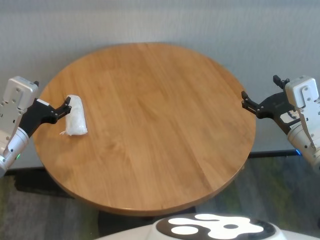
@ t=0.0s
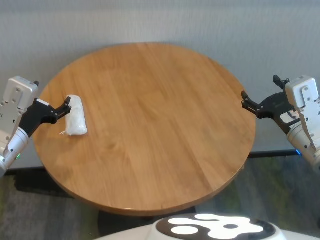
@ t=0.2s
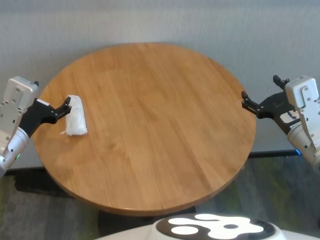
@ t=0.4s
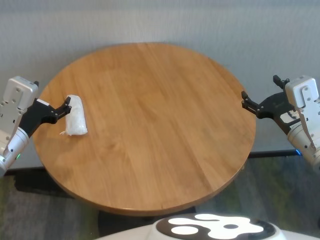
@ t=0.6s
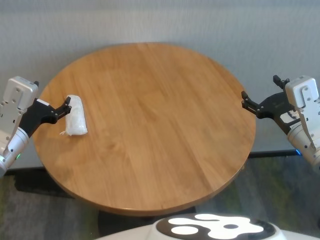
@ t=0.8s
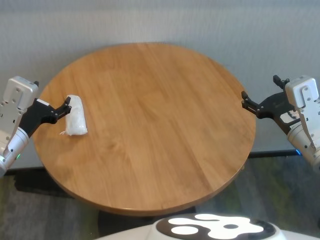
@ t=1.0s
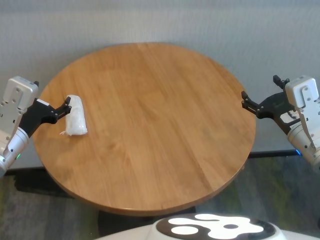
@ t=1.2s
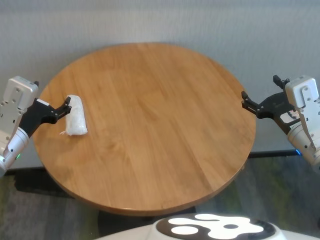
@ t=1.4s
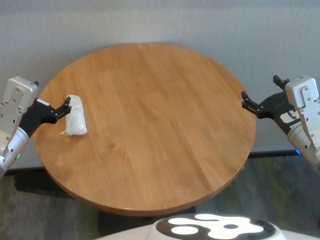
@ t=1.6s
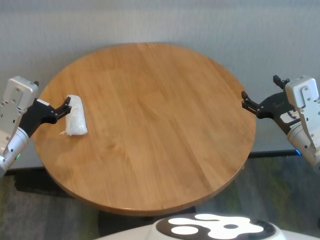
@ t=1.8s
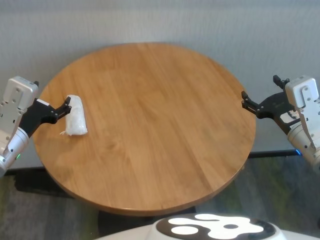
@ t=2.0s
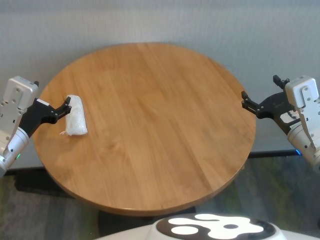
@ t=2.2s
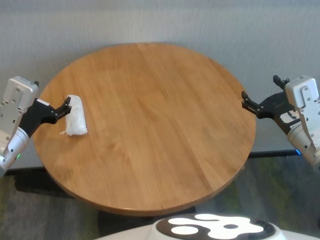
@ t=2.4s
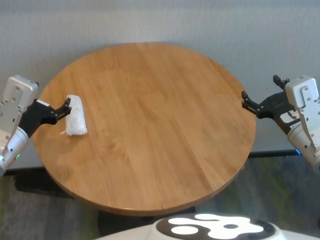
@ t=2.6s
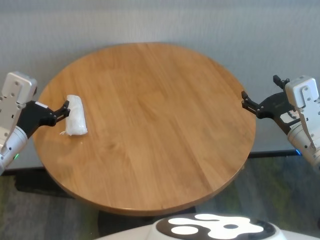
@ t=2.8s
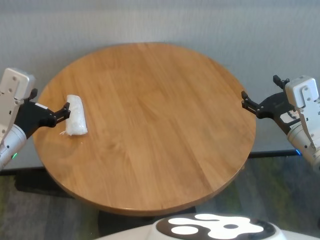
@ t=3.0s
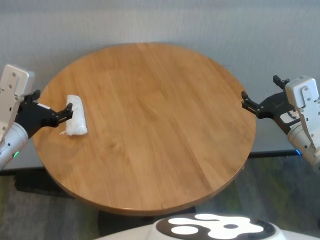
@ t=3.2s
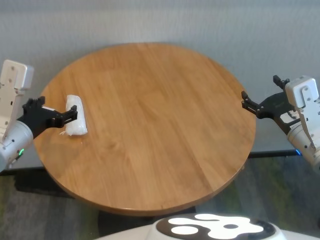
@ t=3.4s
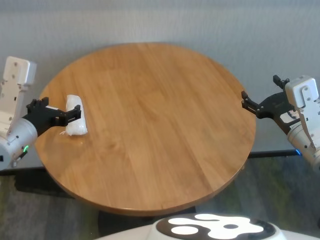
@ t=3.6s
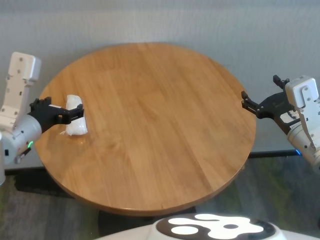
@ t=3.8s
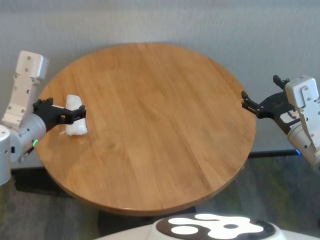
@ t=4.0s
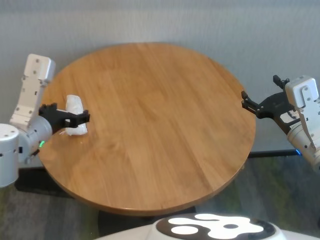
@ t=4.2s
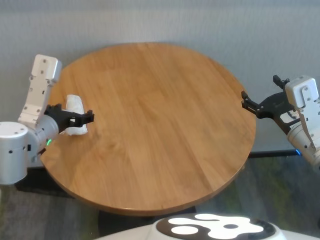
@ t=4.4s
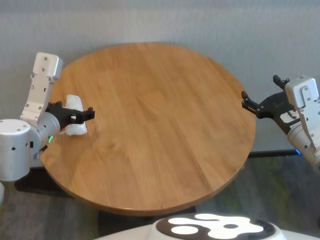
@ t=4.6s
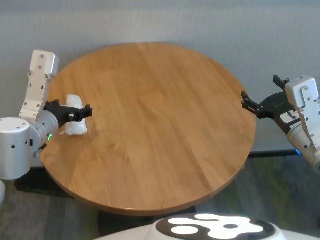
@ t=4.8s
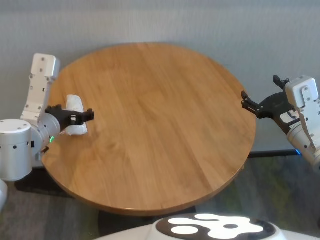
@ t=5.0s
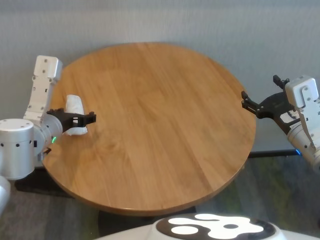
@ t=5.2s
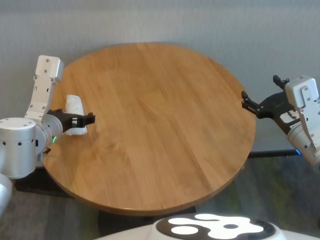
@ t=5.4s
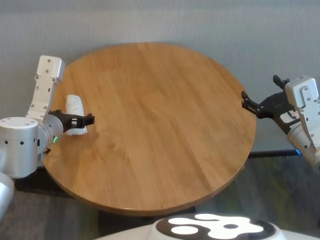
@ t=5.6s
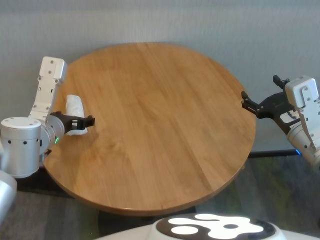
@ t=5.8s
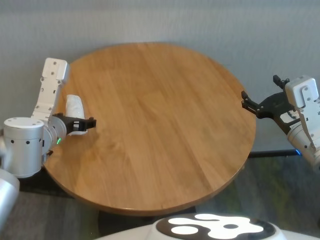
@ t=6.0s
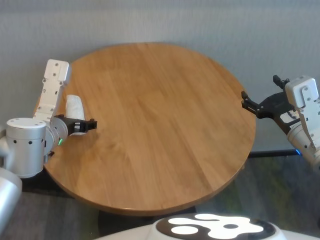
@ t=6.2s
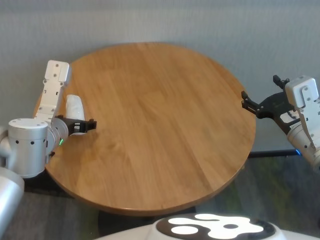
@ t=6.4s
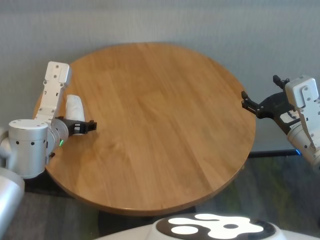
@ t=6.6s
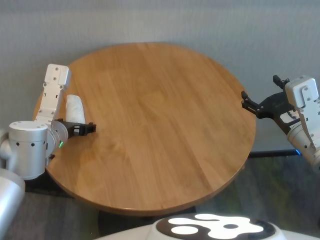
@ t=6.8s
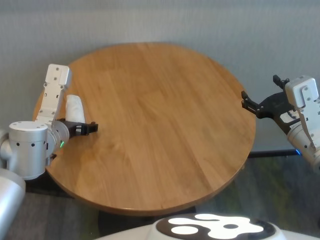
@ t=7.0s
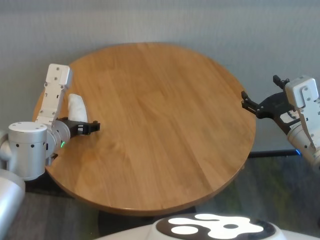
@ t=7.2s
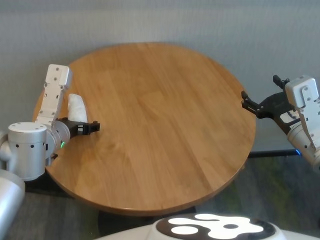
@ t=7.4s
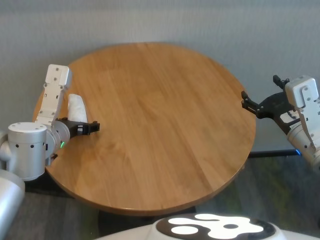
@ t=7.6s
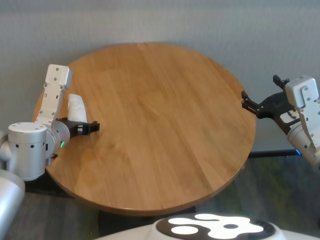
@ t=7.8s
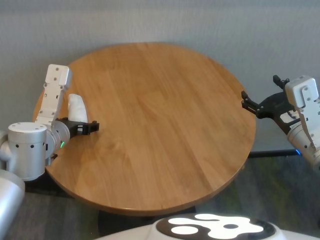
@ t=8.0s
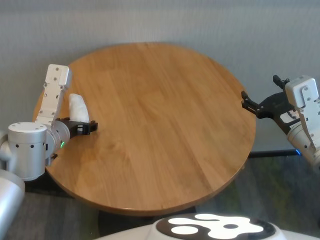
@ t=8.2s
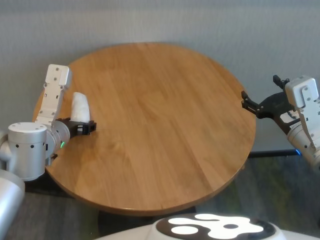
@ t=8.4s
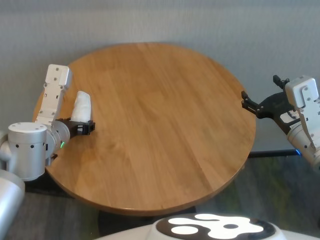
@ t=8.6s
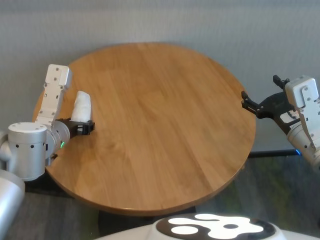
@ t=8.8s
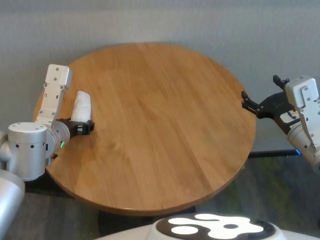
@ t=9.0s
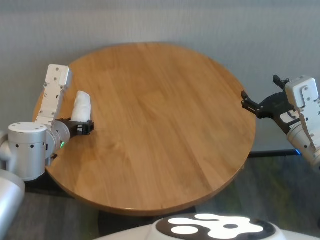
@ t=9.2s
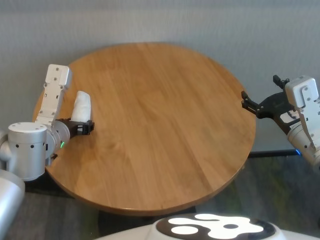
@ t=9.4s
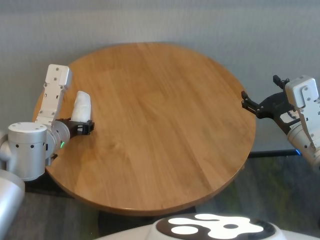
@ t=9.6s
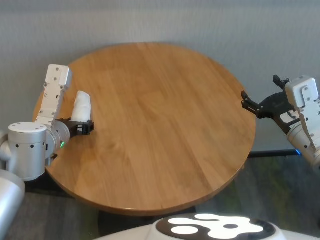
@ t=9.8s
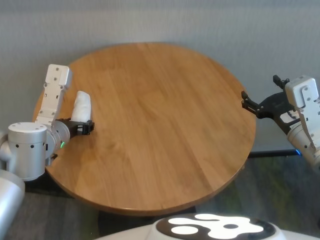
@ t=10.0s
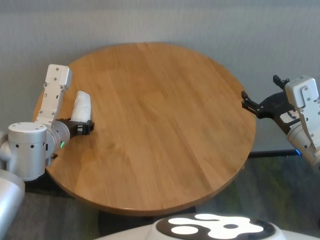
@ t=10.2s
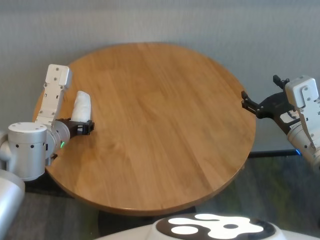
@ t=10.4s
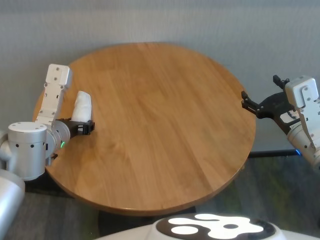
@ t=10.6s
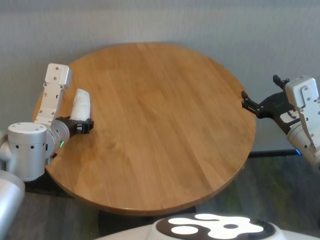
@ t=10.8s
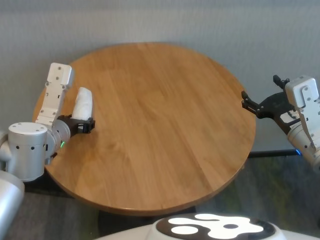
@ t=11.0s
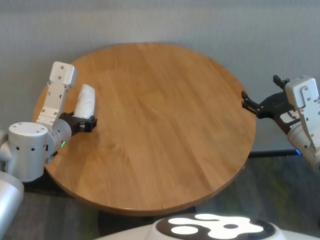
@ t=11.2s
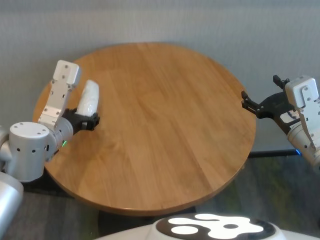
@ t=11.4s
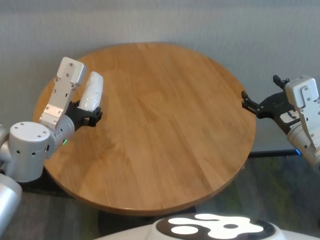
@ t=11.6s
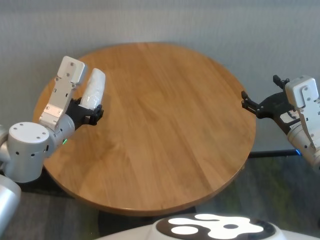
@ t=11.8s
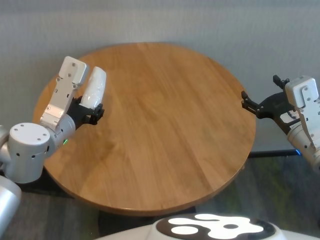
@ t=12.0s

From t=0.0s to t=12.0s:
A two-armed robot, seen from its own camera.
Task of the whole recording: One hand took the sandbag from the other hand and placed it on the table.
Step, from t=0.0s to t=9.0s: Grasp the paper ball with left gripper.

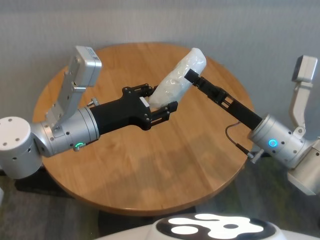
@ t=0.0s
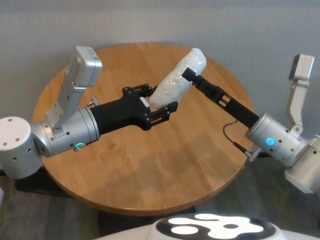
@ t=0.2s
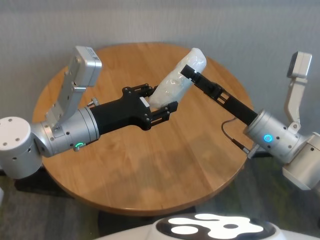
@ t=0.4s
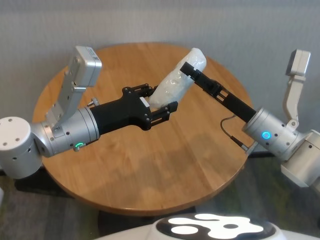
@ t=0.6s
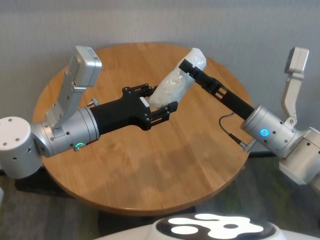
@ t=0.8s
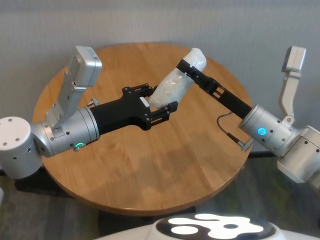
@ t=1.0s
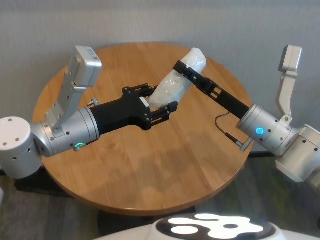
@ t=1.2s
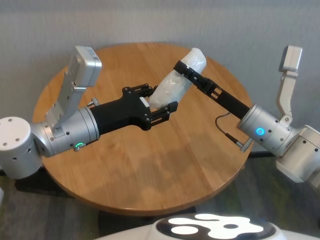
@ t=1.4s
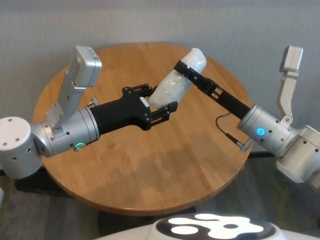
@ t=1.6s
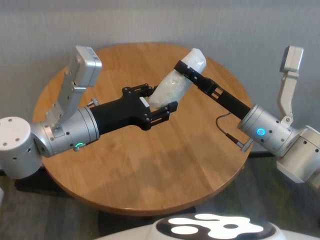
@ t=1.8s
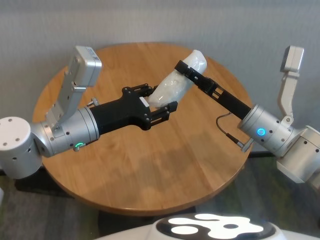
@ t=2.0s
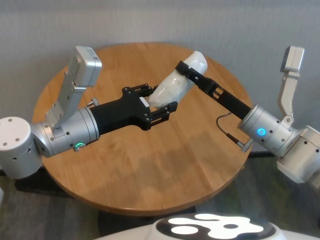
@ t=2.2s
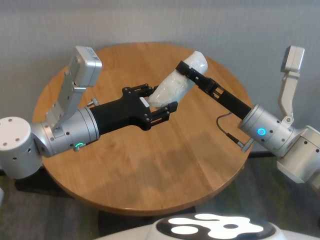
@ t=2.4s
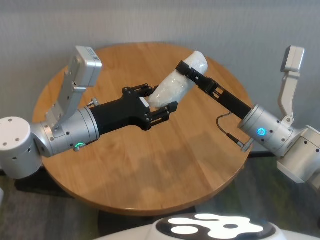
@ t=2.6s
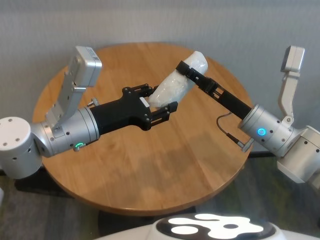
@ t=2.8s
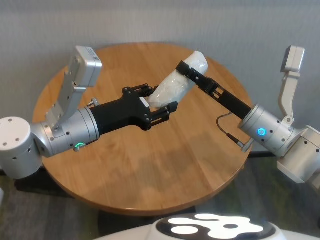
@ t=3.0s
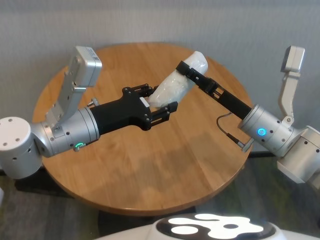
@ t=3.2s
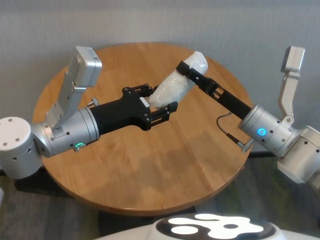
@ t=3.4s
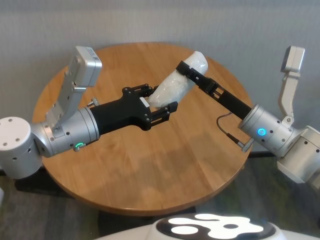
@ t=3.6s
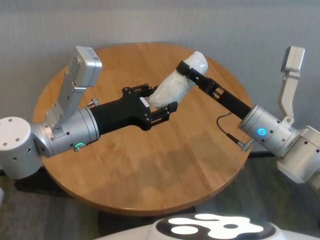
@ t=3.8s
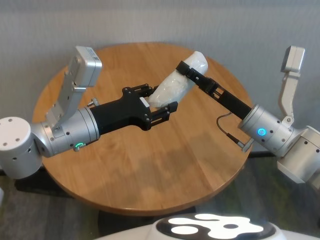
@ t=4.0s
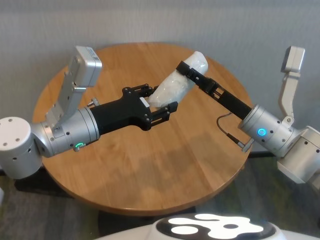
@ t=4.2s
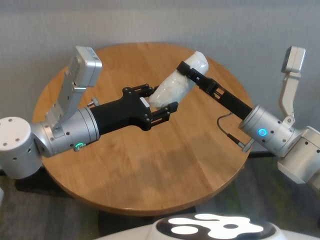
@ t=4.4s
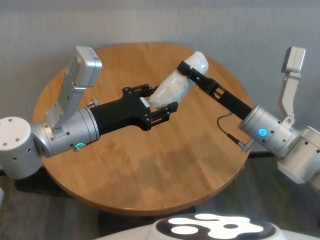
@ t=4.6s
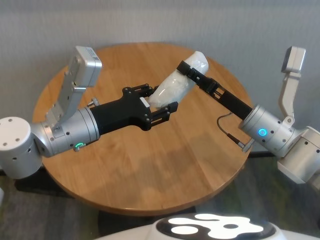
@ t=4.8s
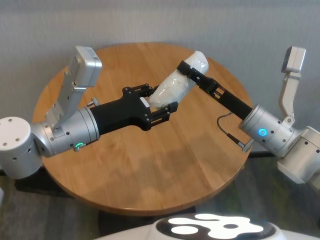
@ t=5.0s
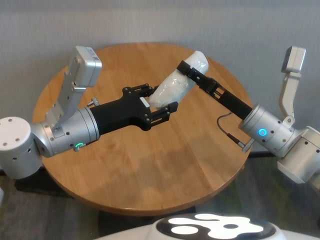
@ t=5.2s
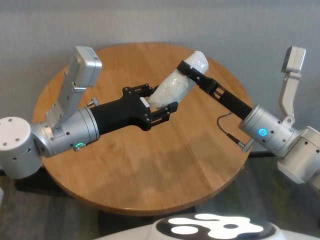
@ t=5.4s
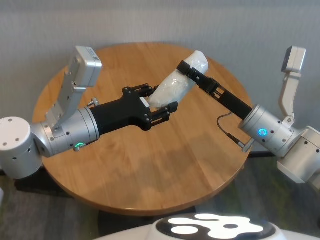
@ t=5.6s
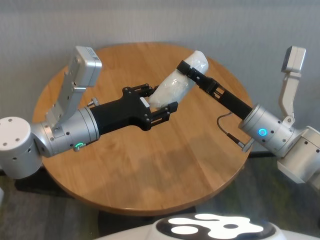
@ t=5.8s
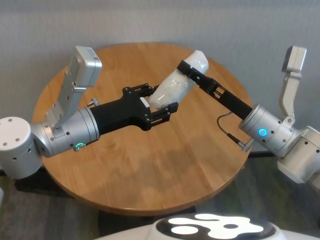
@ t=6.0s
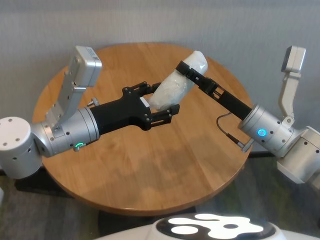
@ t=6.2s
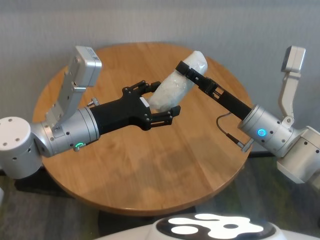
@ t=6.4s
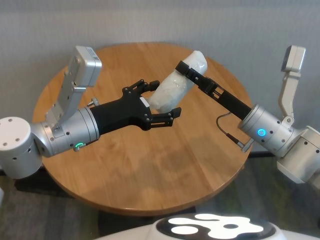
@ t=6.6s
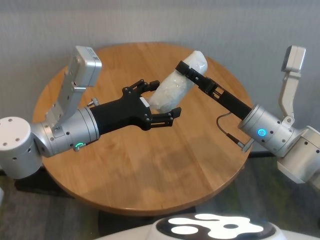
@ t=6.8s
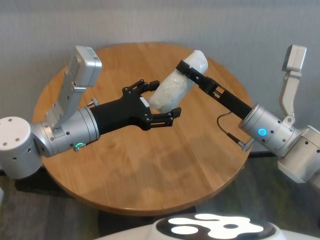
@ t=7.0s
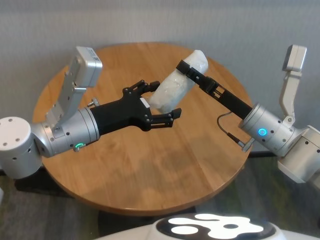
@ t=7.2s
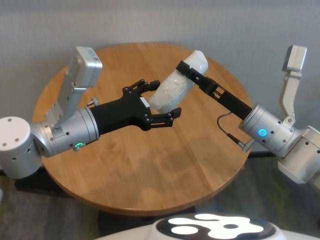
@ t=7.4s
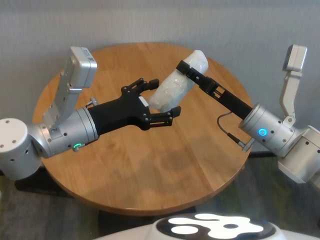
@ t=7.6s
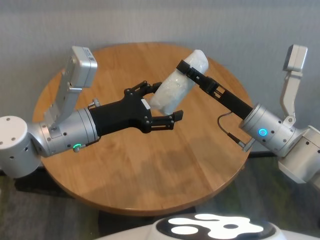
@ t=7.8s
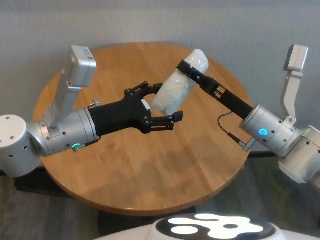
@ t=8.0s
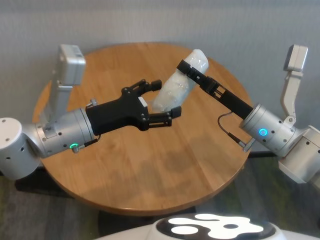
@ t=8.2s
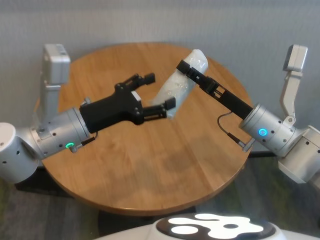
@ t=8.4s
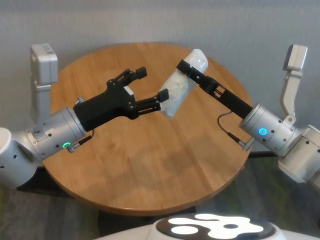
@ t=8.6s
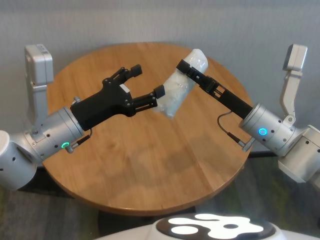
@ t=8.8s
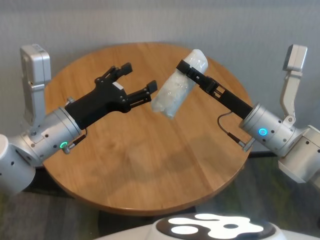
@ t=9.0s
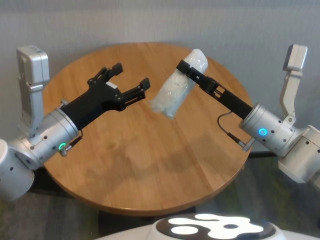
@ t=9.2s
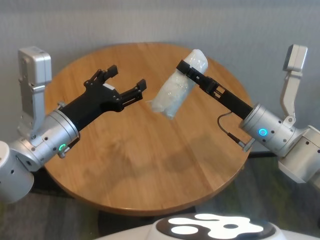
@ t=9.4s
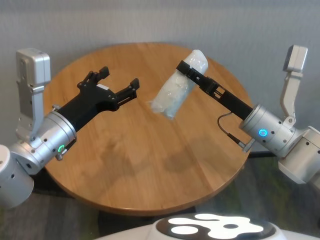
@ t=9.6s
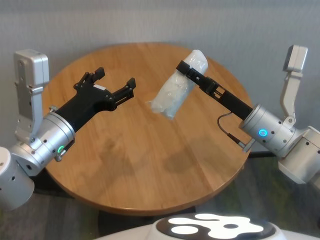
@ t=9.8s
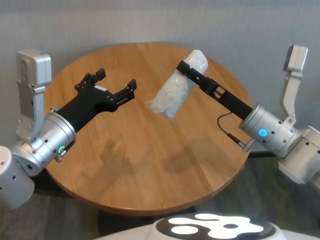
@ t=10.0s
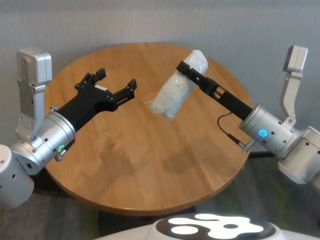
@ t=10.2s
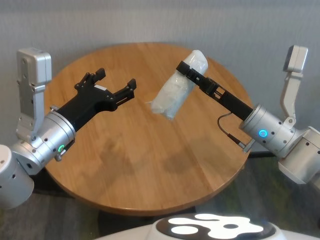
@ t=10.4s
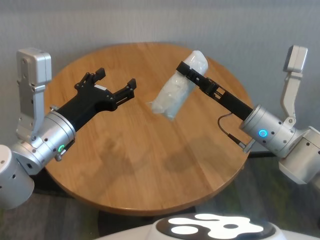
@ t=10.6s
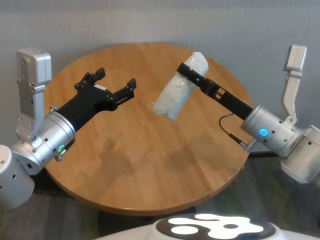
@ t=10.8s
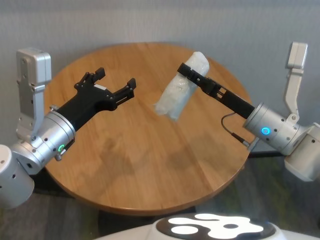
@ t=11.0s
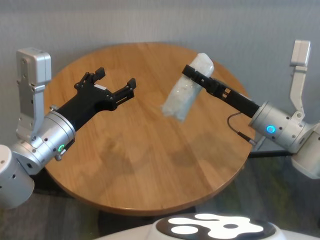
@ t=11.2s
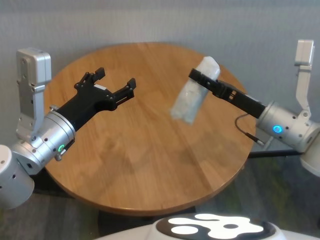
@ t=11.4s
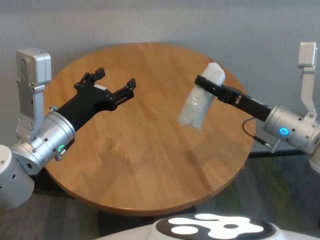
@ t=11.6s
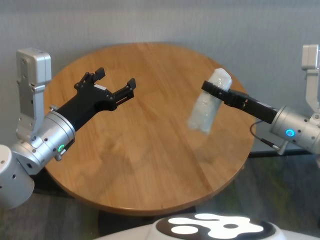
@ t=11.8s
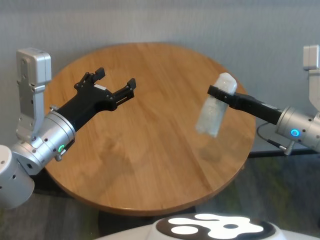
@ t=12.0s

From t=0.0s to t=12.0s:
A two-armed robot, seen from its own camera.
Task of the whole recording: One hand took the sandbag from the other hand and placed it on the table.
Step, from t=0.0s to t=8.8s: Pass the paper ball to the right gripper.
